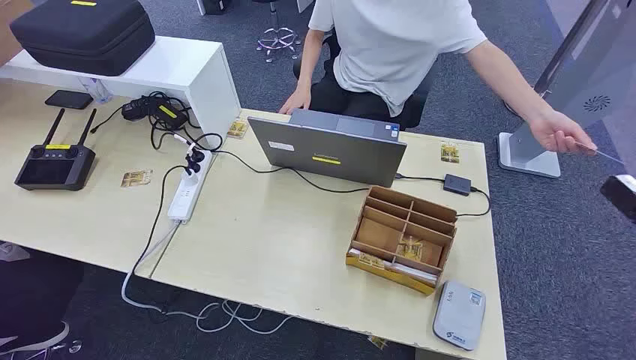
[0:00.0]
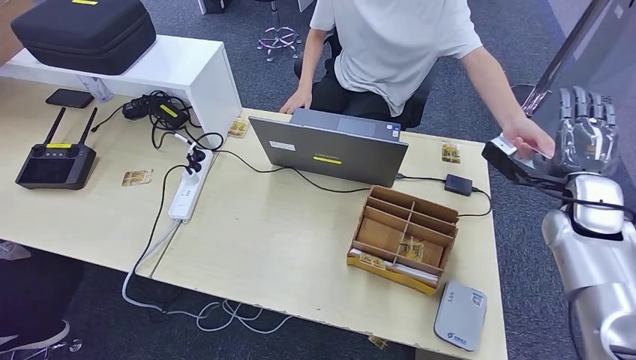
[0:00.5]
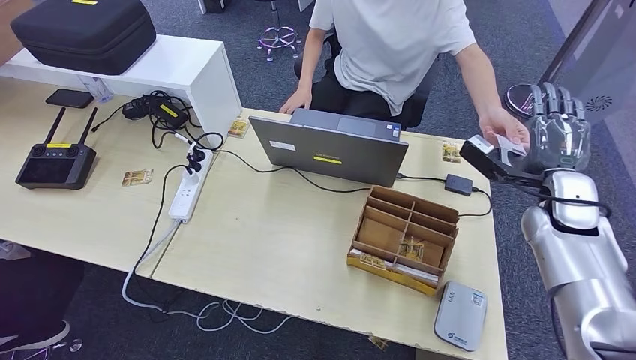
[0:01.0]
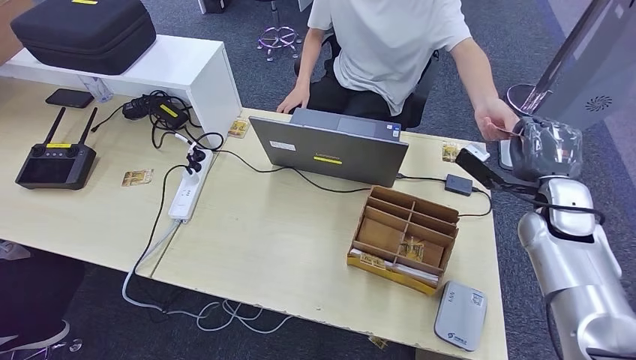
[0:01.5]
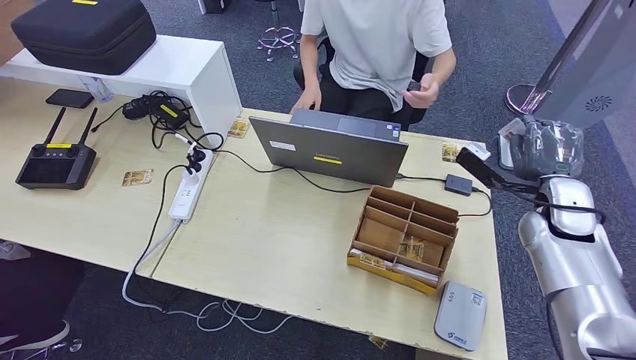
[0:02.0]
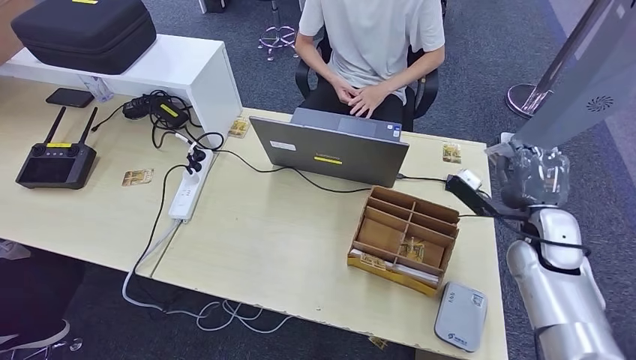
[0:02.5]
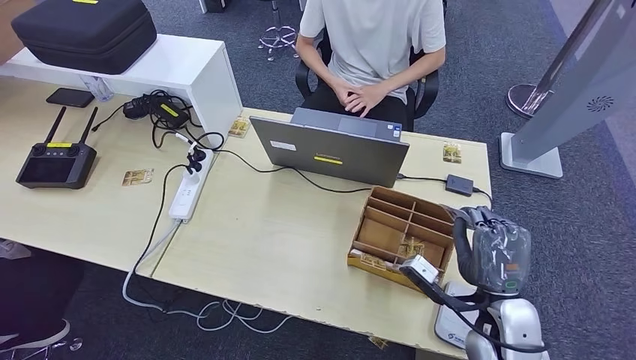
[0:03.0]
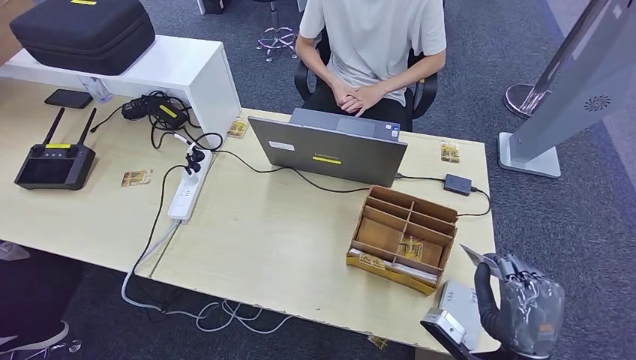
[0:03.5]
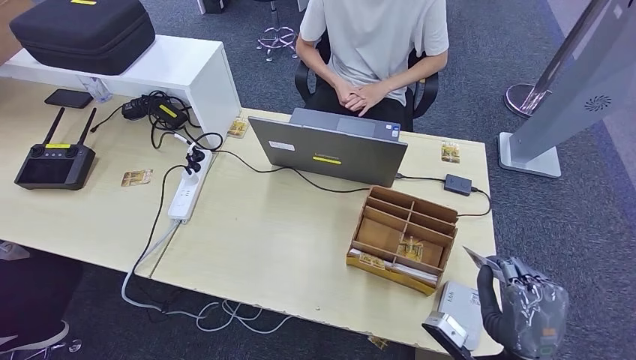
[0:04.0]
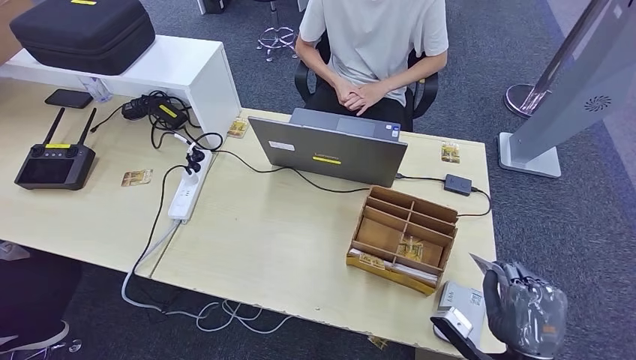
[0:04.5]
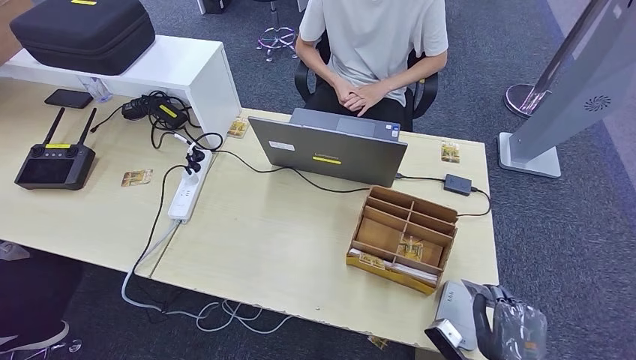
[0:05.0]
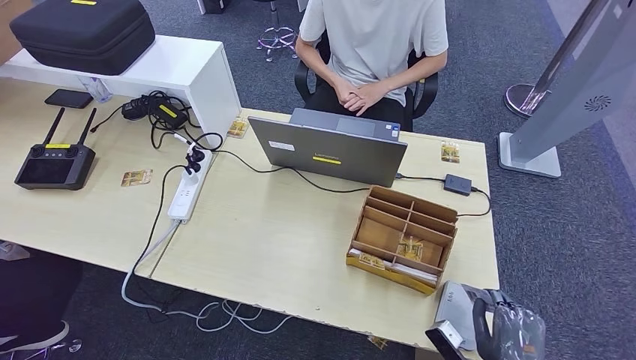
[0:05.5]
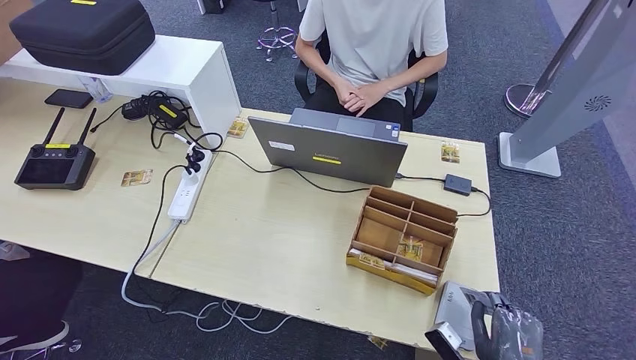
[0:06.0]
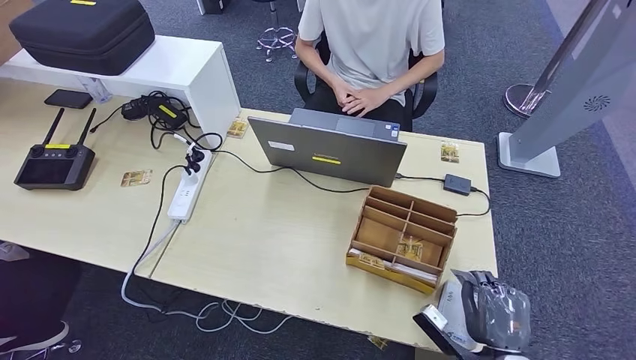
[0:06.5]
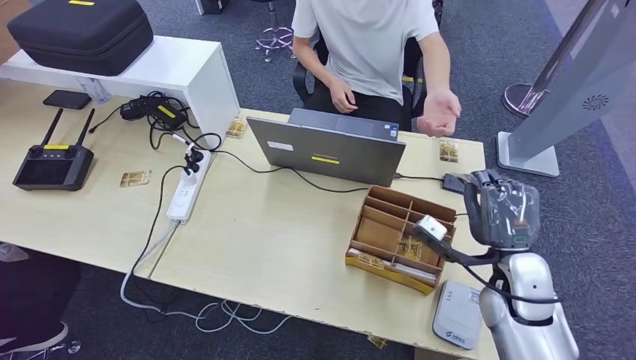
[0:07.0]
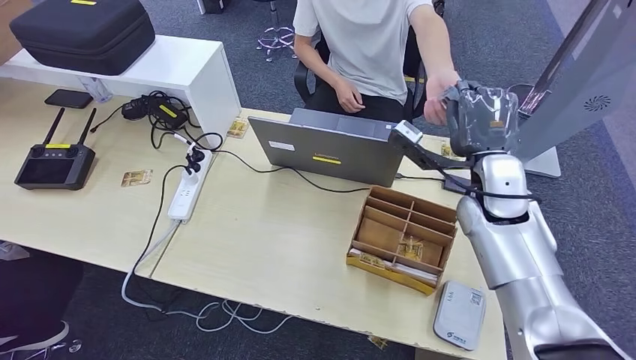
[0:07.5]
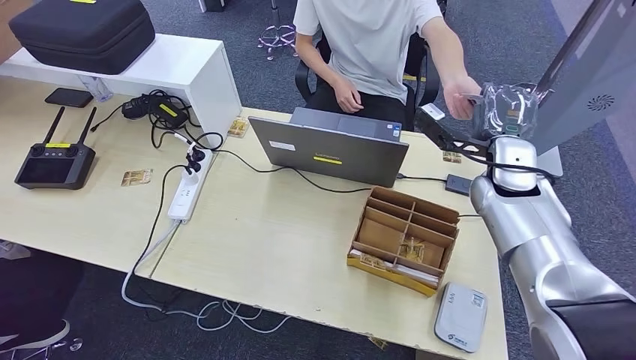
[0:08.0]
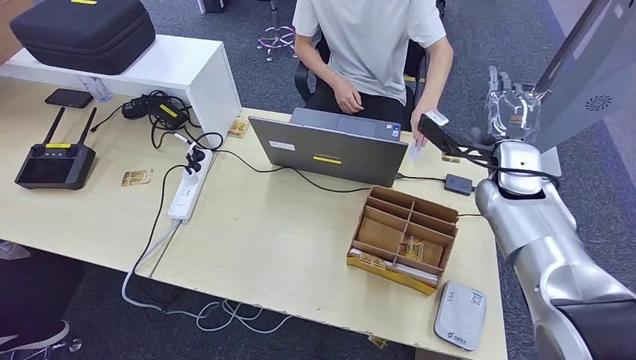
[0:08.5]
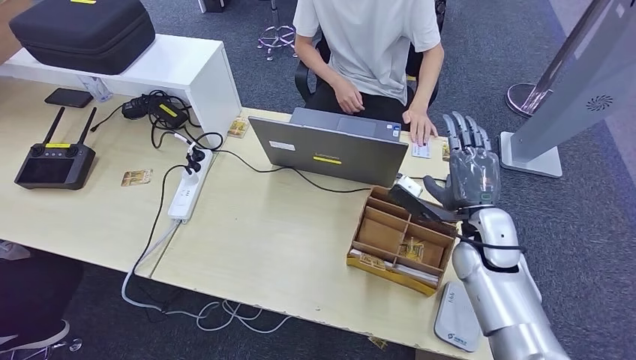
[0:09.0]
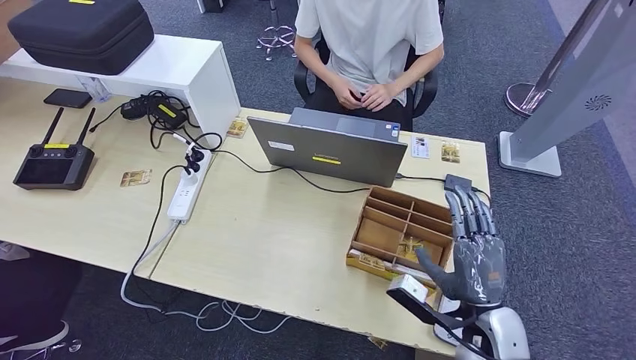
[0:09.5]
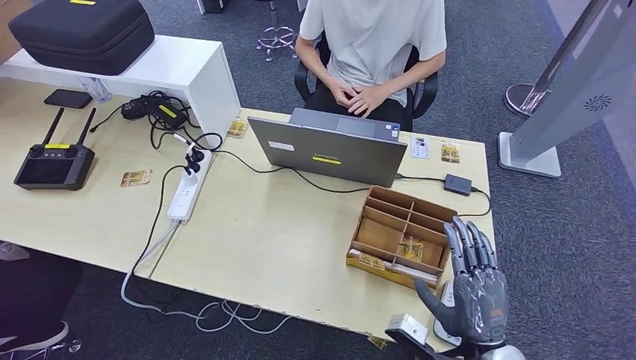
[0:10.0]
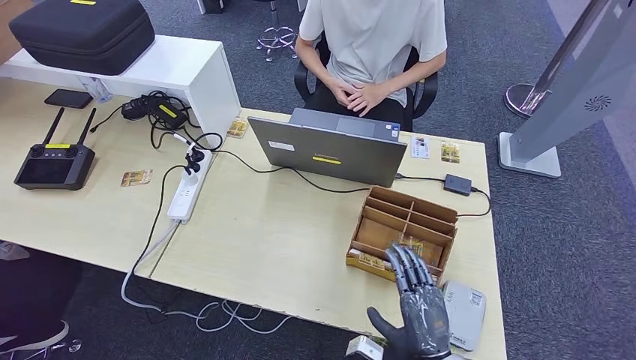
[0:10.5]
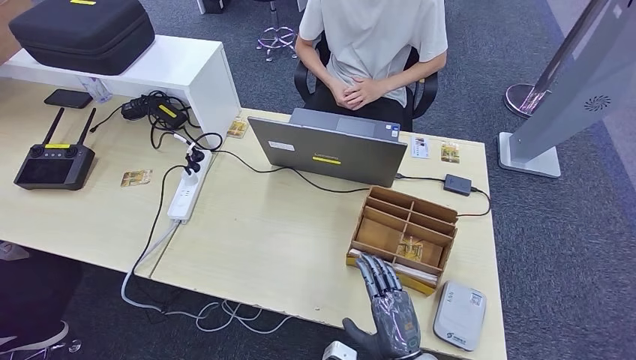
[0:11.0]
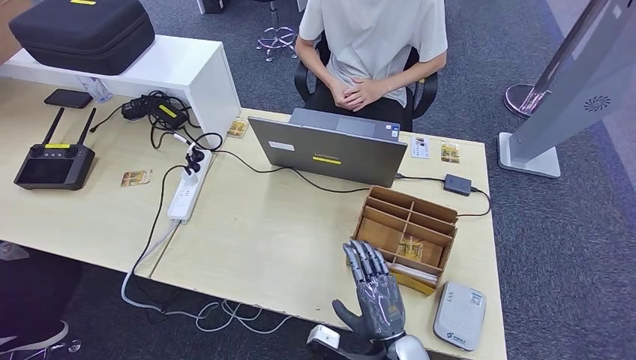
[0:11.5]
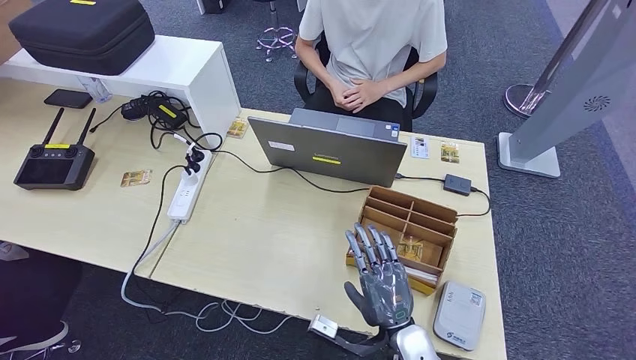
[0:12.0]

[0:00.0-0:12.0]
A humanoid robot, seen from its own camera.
Step, 0:00.0 to 0:02.5: Take the ID card from the person's hand.
Step, 0:03.0 to 0:07.0: Place the ID card on the card reader.
Step, 0:07.5 to 0:09.5: Hand the ID card to the person.
0:02.0 to 0:04.0: The right hand shifts about 25 cm backward and downward.
0:04.0 to 0:06.0: The right hand heads downward, covering some 10 cm.
0:06.0 to 0:08.0: The right hand is displaced forward and upward by approximately 40 cm.
0:08.0 to 0:10.0: The right hand heads backward and downward, covering approximately 30 cm.
0:10.0 to 0:12.0: The right hand goes about 10 cm to the left and downward.

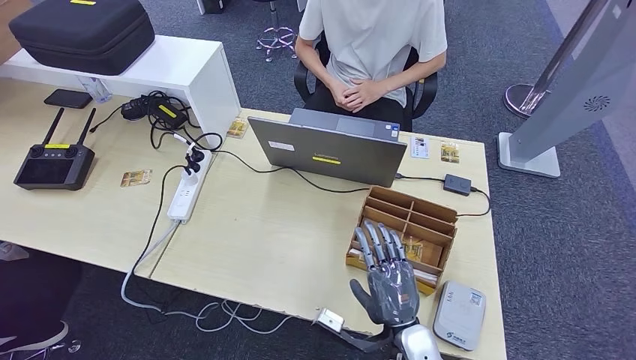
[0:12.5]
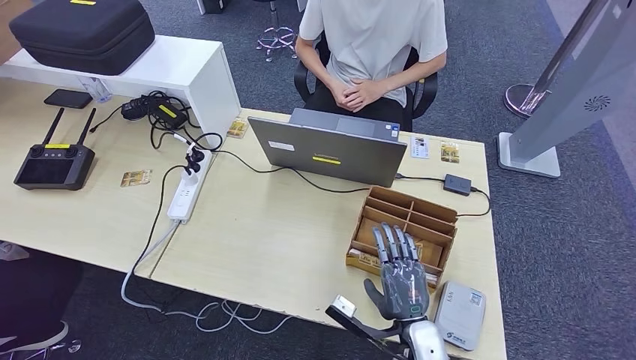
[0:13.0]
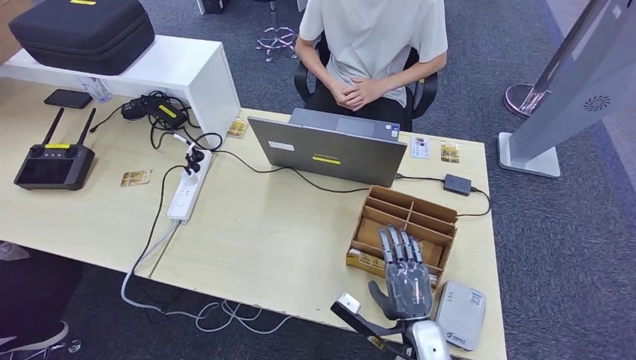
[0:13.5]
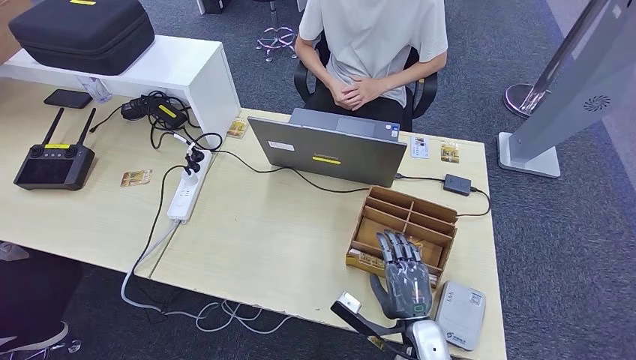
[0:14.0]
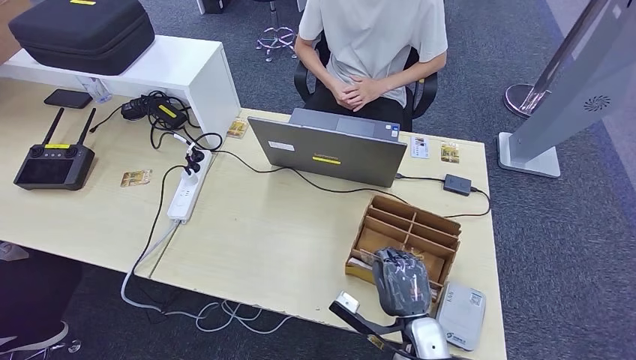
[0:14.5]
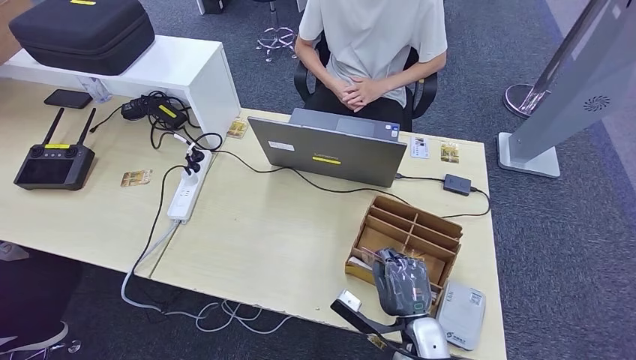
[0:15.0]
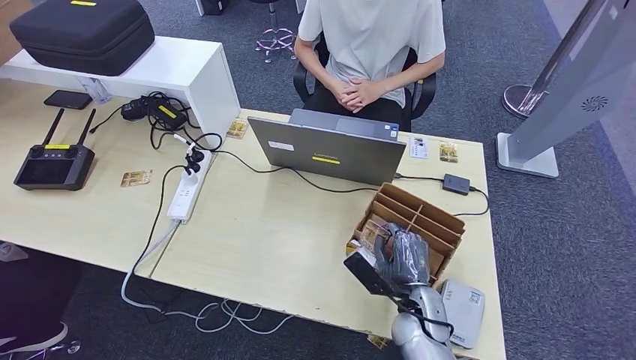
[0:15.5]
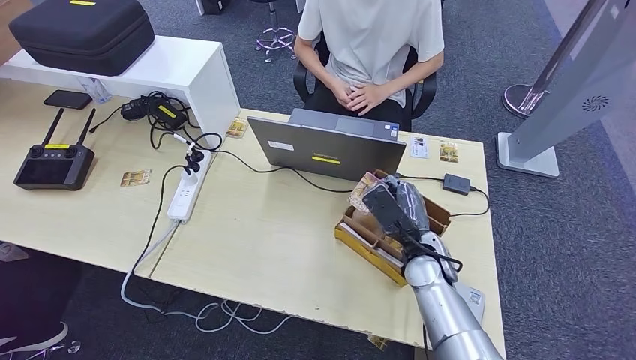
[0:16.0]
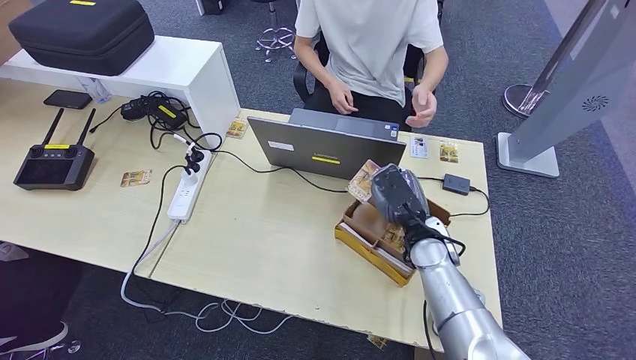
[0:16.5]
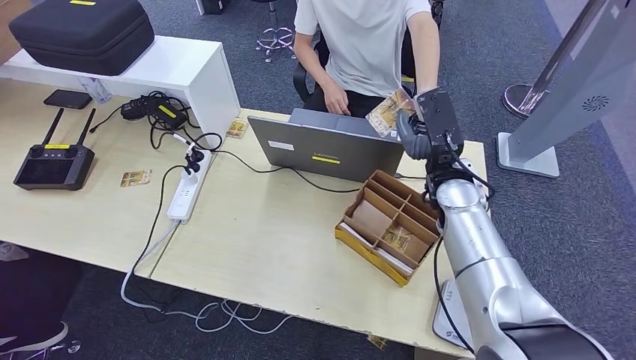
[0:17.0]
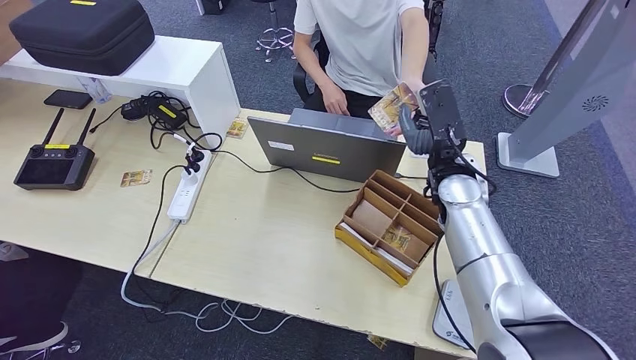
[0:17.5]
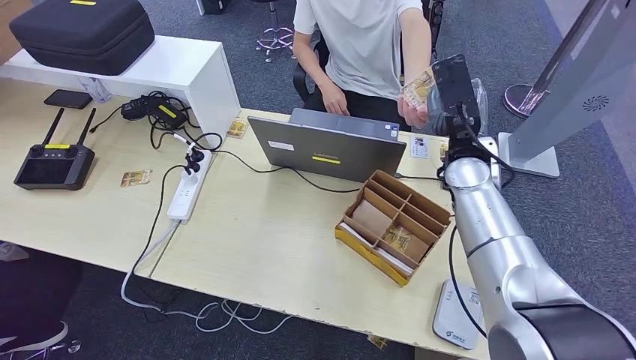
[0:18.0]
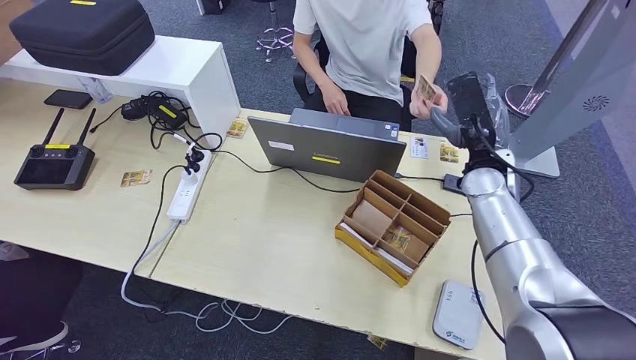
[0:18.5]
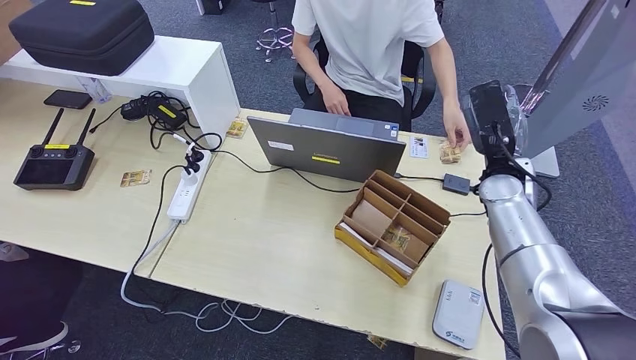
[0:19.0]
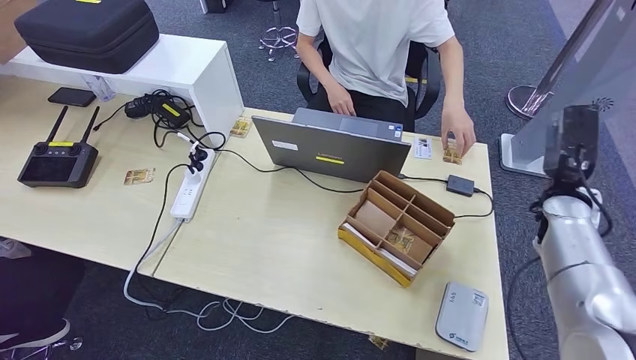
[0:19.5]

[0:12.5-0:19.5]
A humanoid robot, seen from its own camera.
Step, 0:14.0 to 0:16.5: Pick up the room key from the key card box.
Step, 0:17.0 to 0:19.5: Hand the room key to the person.
0:12.5 to 0:14.5: The hands make only small movements.
0:14.5 to 0:16.0: The right hand travels forward and upward by roughly 15 cm.
0:16.0 to 0:17.5: The right hand is displaced upward and forward by roughly 15 cm.
